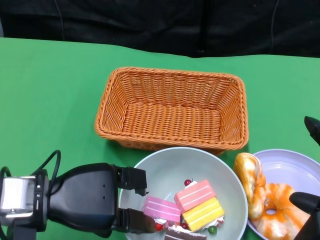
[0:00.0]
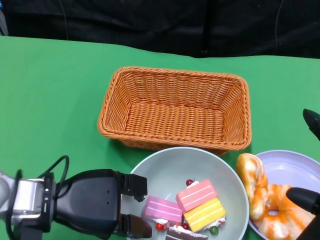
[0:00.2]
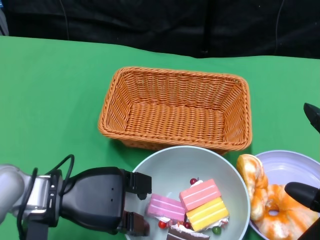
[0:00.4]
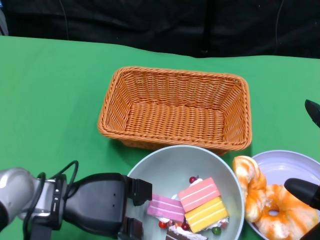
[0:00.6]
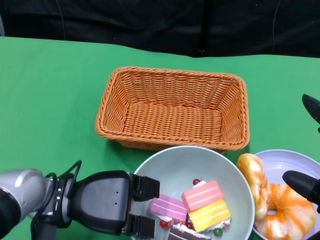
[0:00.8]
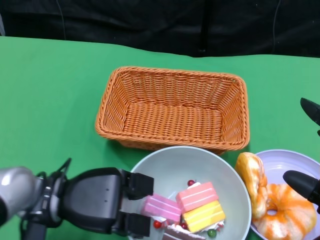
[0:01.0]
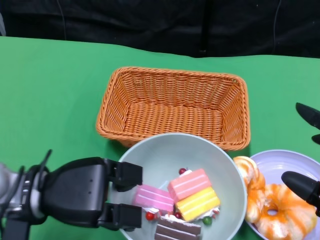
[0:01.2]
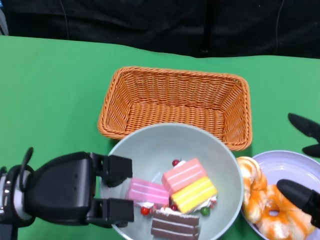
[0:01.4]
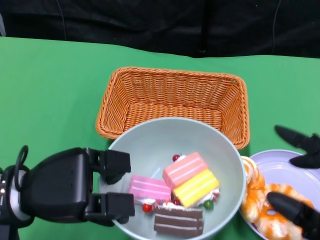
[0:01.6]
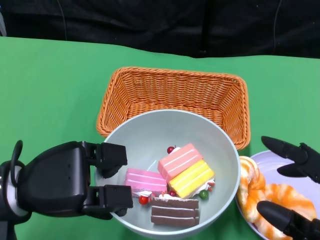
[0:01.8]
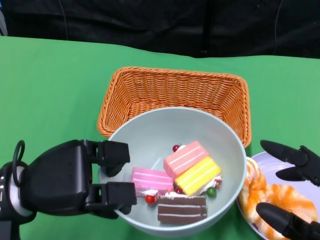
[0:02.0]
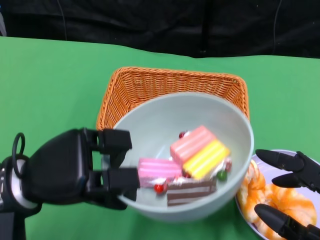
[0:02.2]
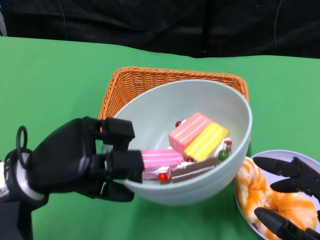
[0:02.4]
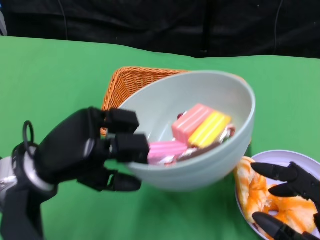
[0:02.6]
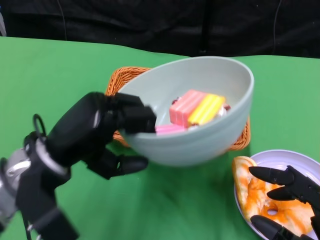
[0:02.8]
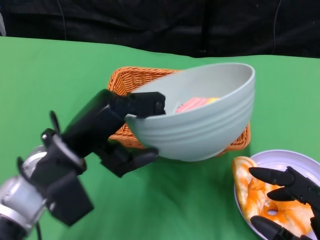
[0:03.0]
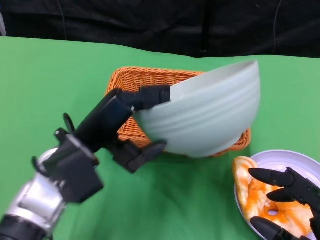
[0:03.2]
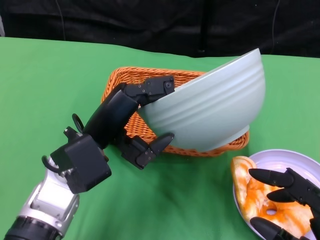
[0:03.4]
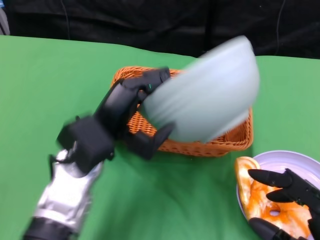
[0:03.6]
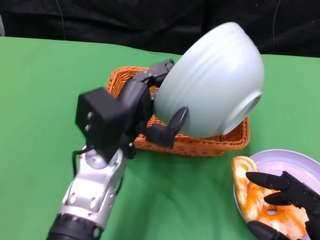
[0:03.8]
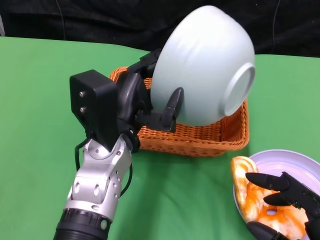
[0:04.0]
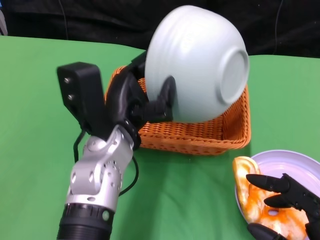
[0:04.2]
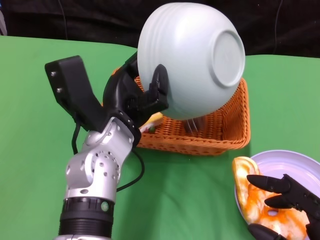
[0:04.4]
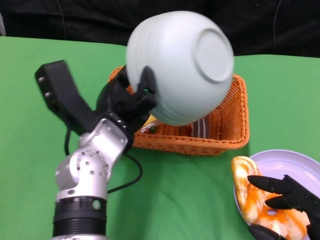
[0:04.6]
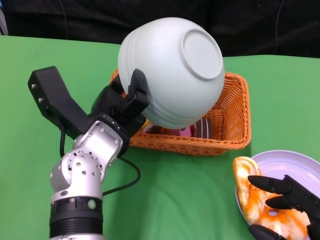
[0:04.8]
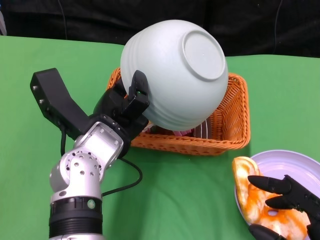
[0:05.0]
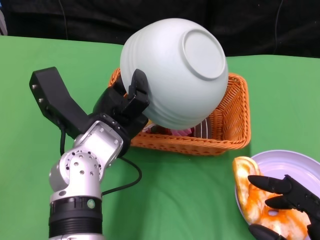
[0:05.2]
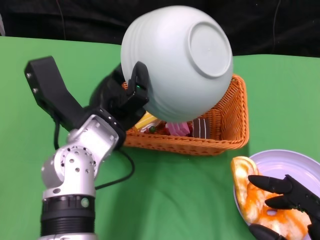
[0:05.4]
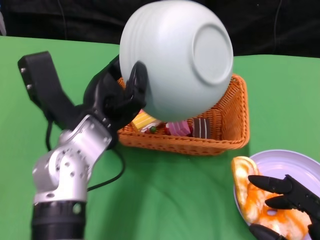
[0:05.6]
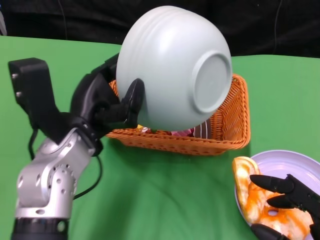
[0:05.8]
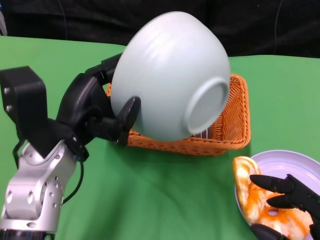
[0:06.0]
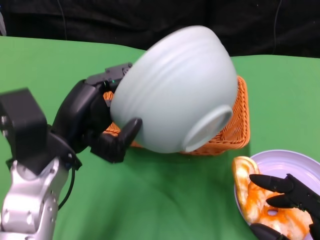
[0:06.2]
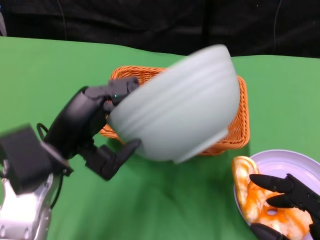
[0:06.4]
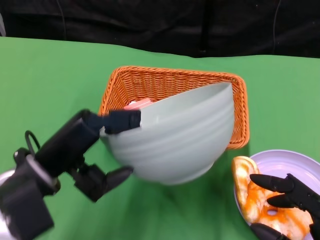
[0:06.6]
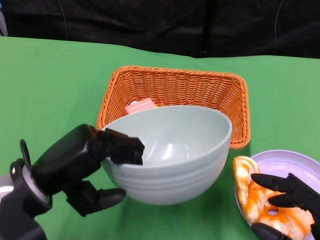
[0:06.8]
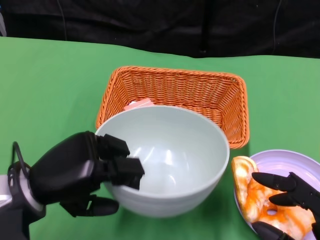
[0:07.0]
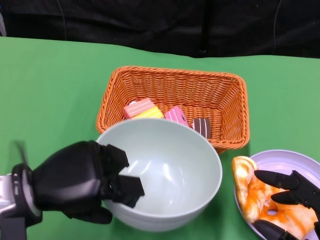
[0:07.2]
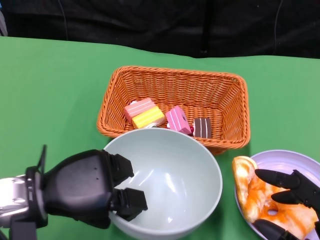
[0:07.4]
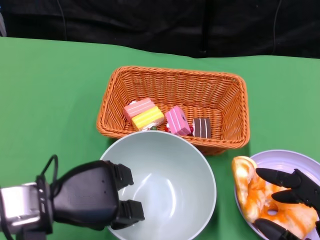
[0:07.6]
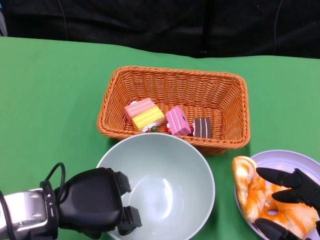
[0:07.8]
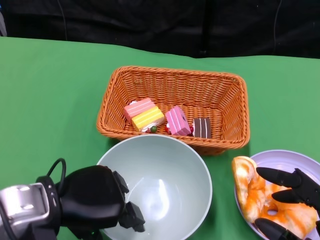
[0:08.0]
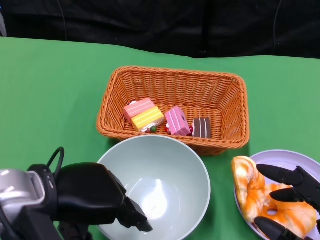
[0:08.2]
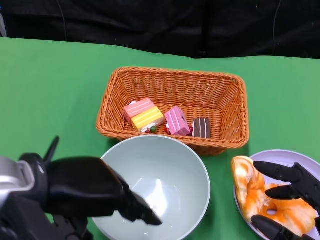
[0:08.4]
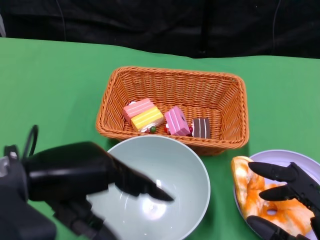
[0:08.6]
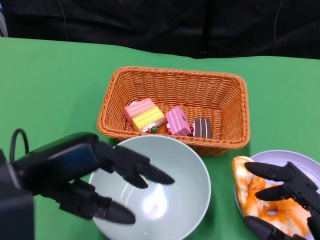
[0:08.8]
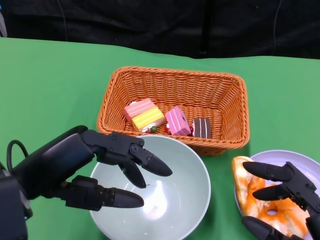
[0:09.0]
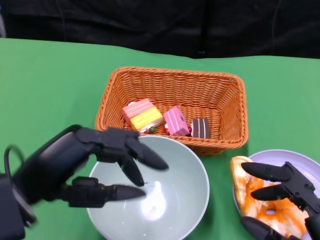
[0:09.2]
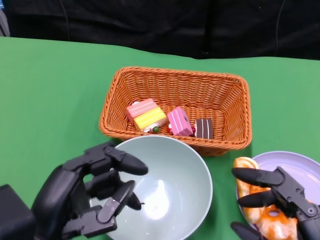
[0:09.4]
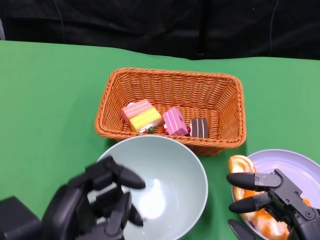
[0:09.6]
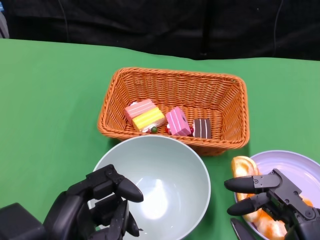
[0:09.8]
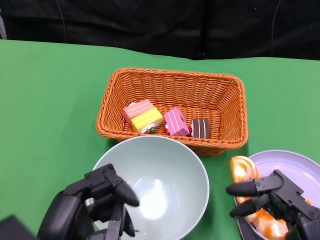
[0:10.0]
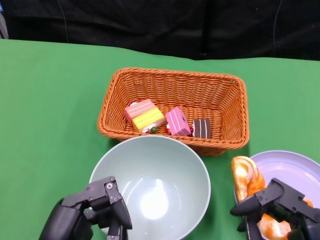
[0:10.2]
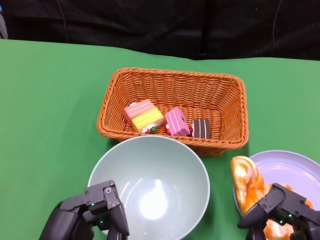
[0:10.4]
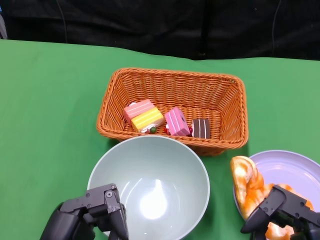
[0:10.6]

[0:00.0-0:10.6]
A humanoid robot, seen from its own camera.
Step, 0:01.0 to 0:05.4: Pour the cake into the basket with the left gripper.
Step, 0:05.6 to 0:08.2: Place the bowl on the table with the left gripper.
0:01.6 to 0:03.0: The left hand travels to the right by approximately 5 cm.
0:03.0 to 0:04.6: The left hand shifts about 5 cm to the right.
0:04.6 to 0:06.0: The left hand goes about 5 cm to the left.
0:06.0 to 0:07.6: The left hand travels downward by about 5 cm.
0:07.6 to 0:09.0: The left hand goes approximately 10 cm upward.
0:09.0 to 0:10.6: The left hand heads downward and backward, covering some 10 cm.
